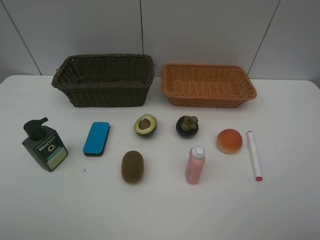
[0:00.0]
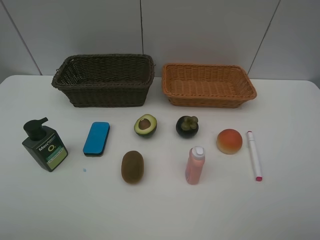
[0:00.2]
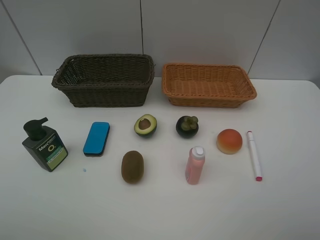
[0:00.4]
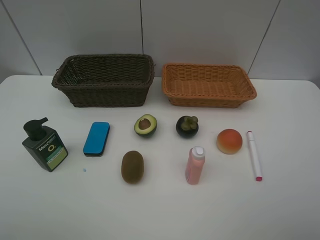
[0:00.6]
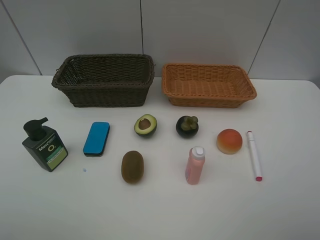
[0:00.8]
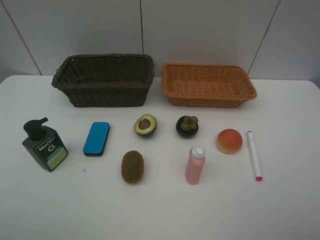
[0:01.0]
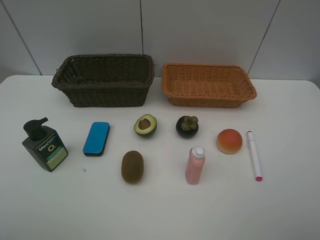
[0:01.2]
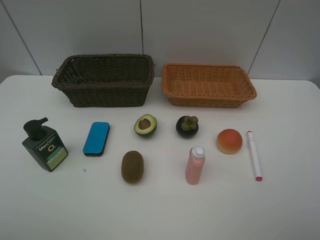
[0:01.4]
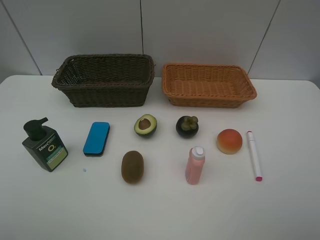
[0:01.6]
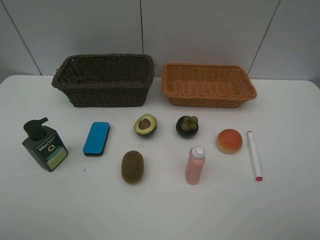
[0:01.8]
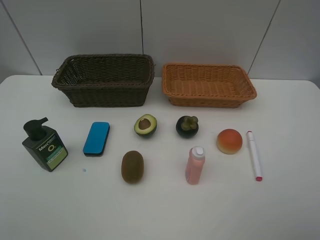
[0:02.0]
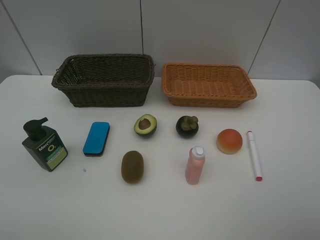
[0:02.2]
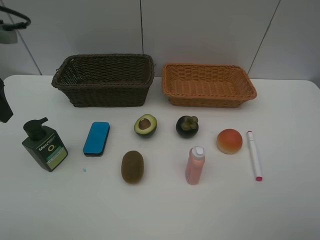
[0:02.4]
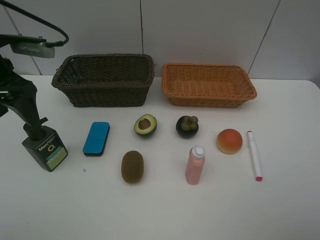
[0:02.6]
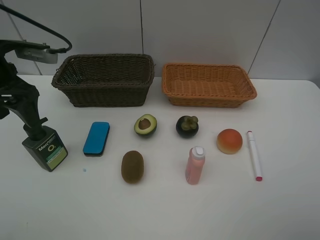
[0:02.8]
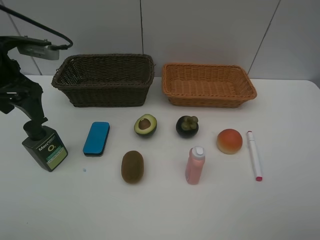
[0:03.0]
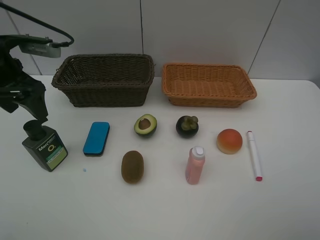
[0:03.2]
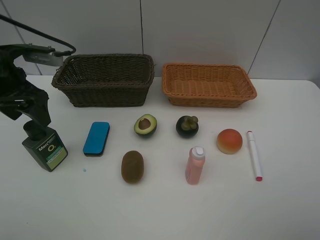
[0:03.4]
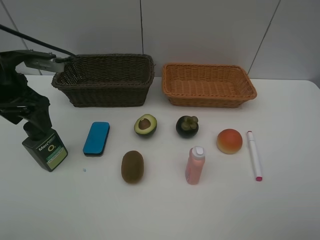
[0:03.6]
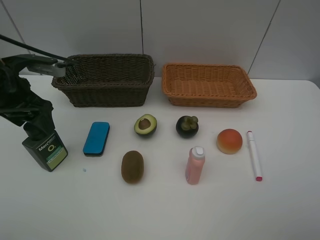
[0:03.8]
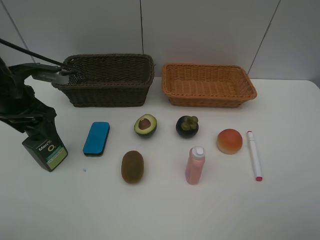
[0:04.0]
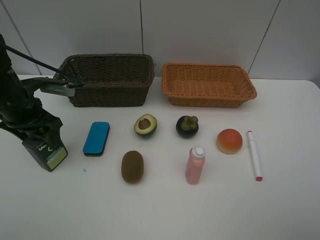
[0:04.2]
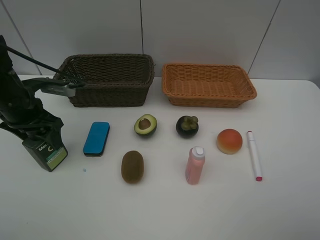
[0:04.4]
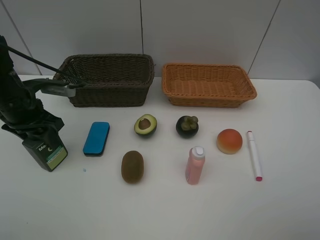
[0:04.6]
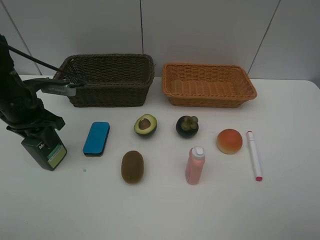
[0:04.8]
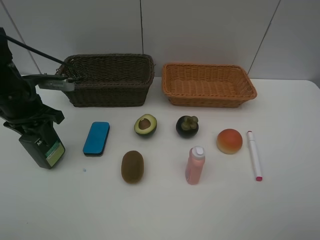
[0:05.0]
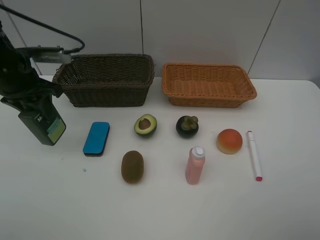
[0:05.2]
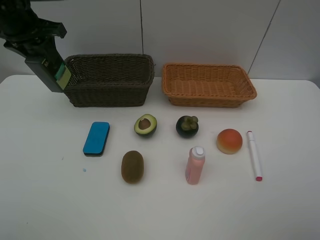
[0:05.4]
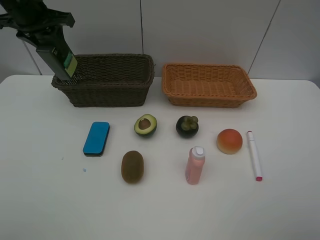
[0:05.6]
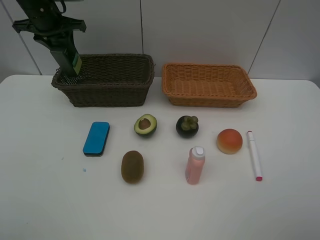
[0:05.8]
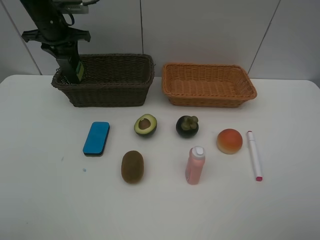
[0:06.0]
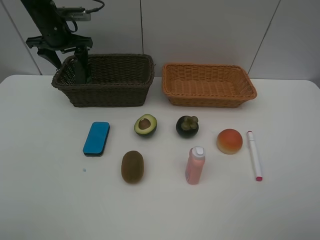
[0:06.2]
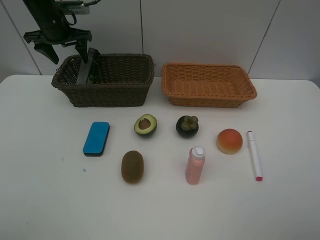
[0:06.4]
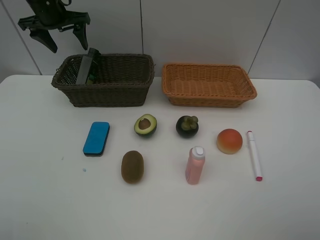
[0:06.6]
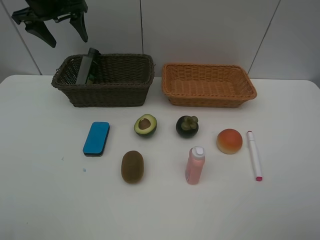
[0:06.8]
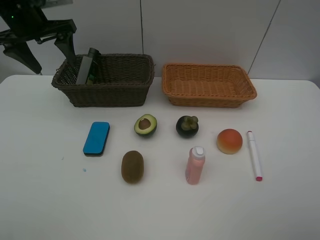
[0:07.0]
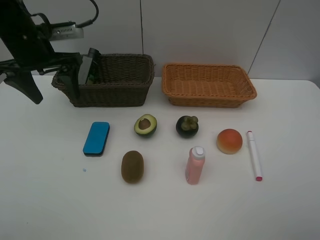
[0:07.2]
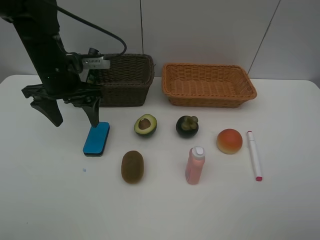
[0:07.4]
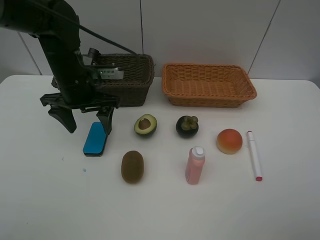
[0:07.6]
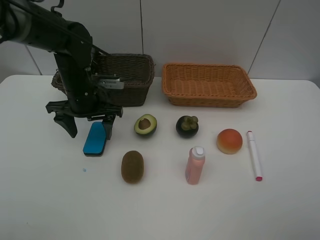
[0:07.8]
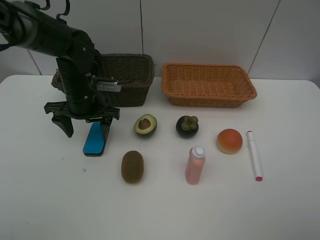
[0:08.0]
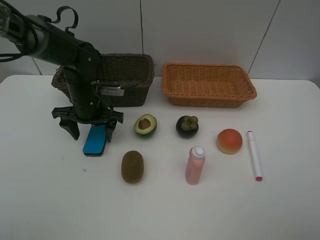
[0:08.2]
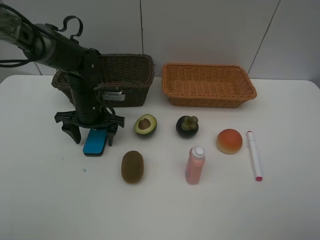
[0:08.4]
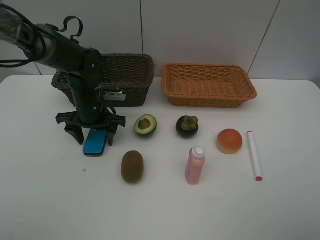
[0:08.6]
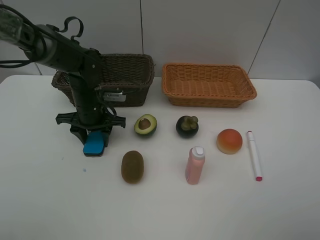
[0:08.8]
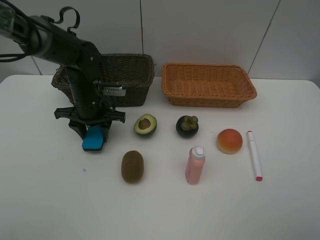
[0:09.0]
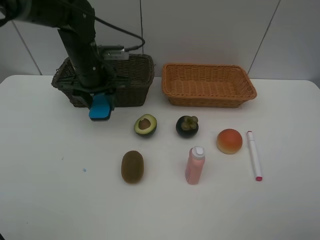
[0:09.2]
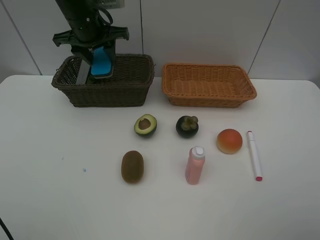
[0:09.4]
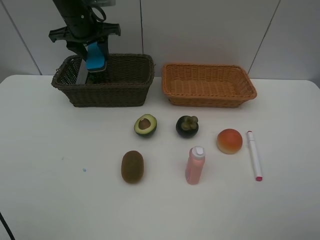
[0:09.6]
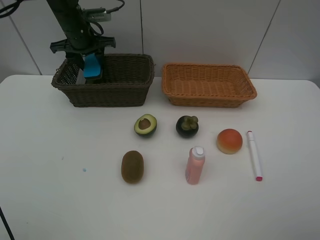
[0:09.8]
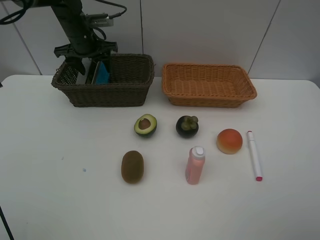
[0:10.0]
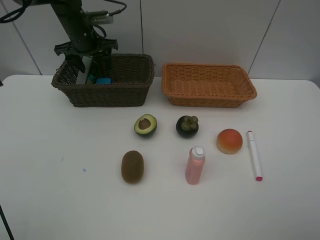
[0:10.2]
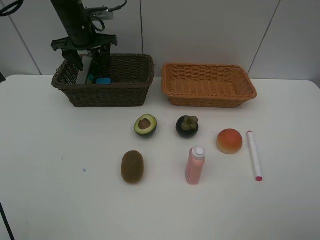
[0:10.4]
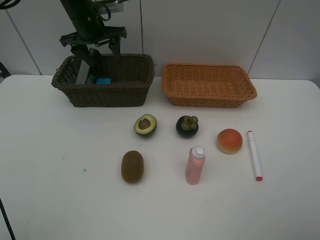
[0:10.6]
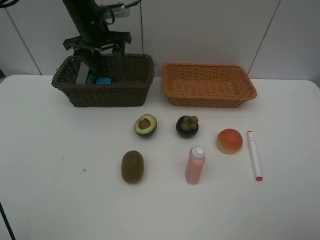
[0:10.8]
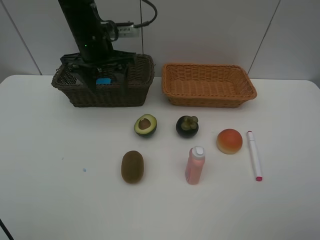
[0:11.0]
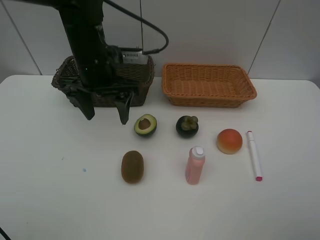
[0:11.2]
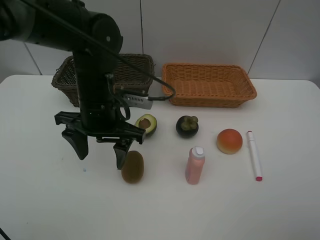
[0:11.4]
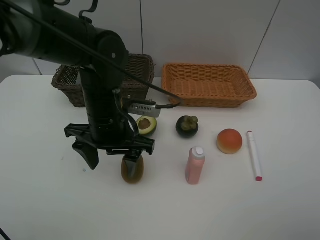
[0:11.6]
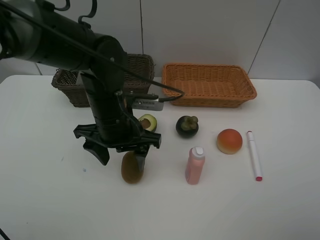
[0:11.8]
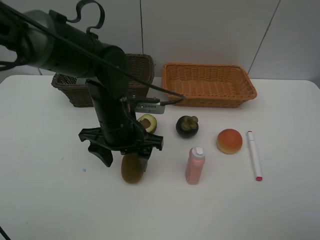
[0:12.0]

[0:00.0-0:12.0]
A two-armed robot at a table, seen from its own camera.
Task of the whole recording: Place multiple objects separately in different baskets.
Step, 0:00.0 to 0:05.2: Pick up the hard facial cleanser with left gripper.
Step, 0:05.4 to 0:06.6: Place the hard facial cleanser in the dark basket with left gripper.
Step, 0:06.8 to 0:09.0: Pick up blackboard eraser with left gripper.
Step, 0:09.2 to 0:10.4: Place the blackboard eraser in the dark basket with left gripper.
0:00.0 to 0:01.6: Both grippers stay about where they are.
0:01.6 to 0:03.0: The left gripper shifts roughly 30 cm forward.
0:03.0 to 0:04.4: The left gripper is displaced downward by approximately 10 cm.
0:04.4 to 0:06.0: The left gripper travels forward by some 20 cm, and closes up.
0:06.0 to 0:07.6: The left gripper shifts about 20 cm backward and to the right, and opens up.
0:07.6 to 0:09.0: The left gripper closes up.
0:09.0 to 0:10.4: The left gripper travels forward and upward by roughly 15 cm, and opens its fingers.
0:10.4 to 0:12.0: The left gripper heads backward and to the right, covering some 25 cm.

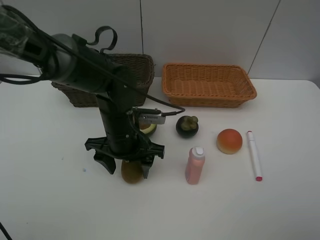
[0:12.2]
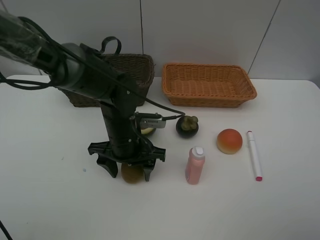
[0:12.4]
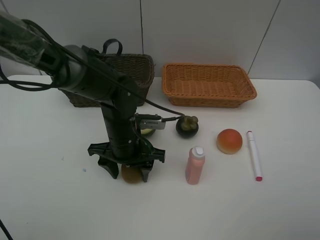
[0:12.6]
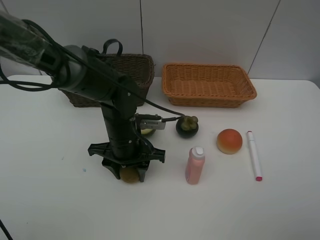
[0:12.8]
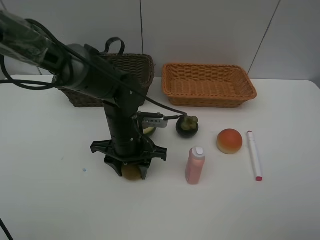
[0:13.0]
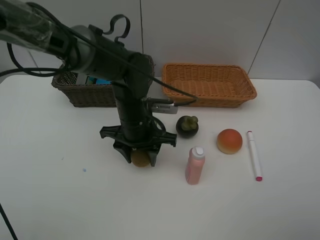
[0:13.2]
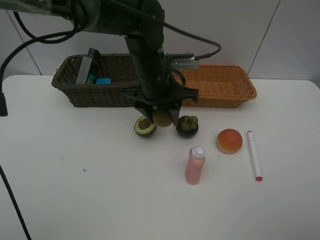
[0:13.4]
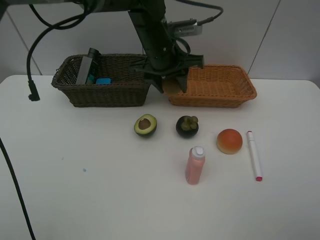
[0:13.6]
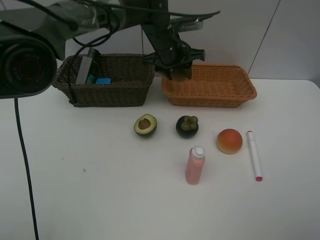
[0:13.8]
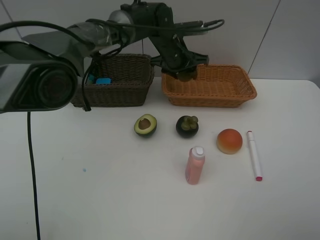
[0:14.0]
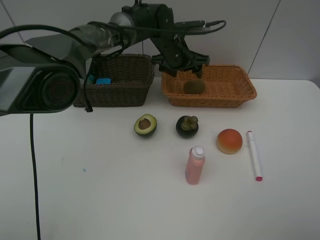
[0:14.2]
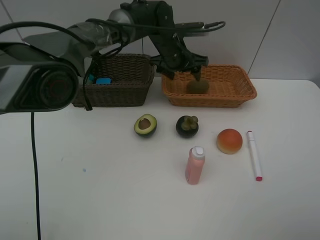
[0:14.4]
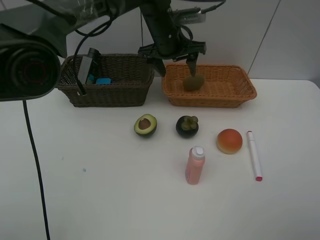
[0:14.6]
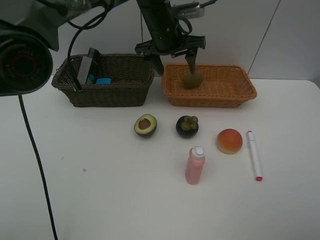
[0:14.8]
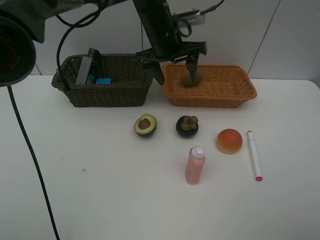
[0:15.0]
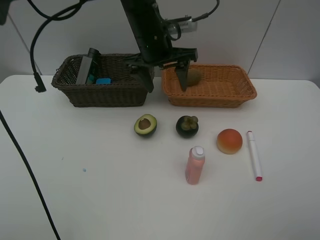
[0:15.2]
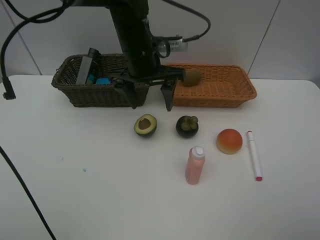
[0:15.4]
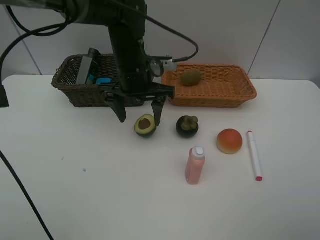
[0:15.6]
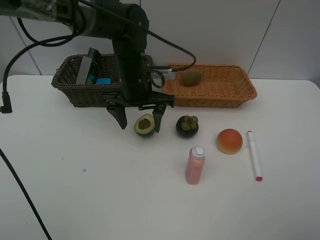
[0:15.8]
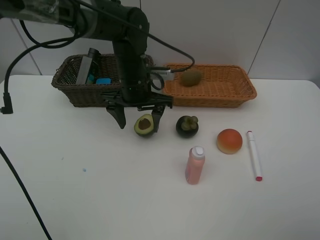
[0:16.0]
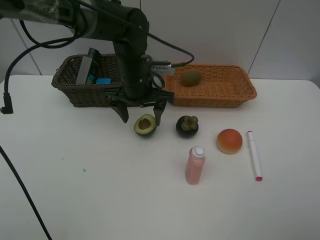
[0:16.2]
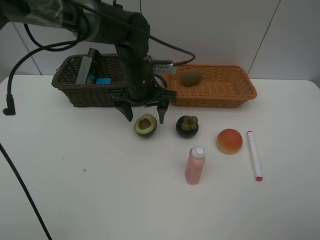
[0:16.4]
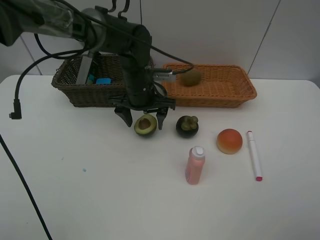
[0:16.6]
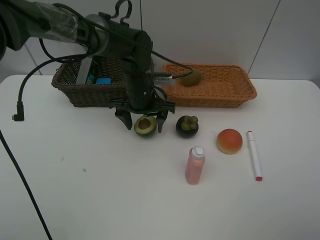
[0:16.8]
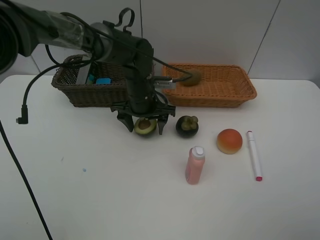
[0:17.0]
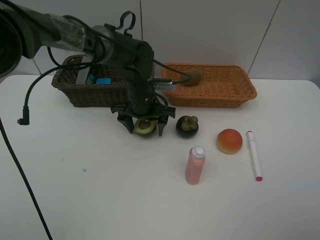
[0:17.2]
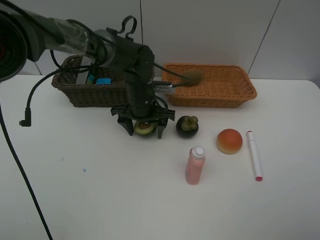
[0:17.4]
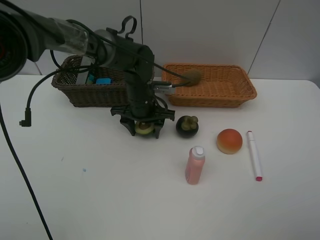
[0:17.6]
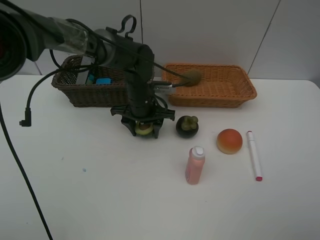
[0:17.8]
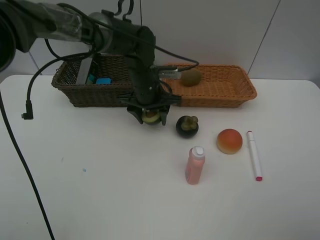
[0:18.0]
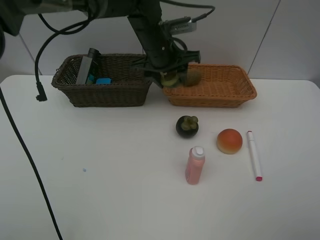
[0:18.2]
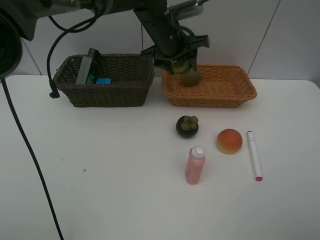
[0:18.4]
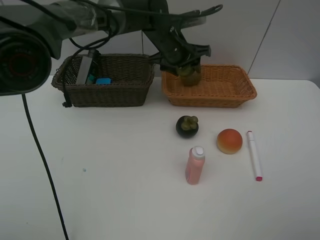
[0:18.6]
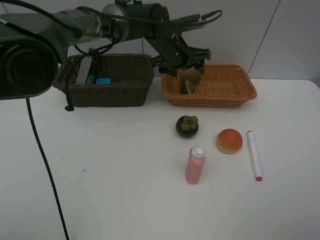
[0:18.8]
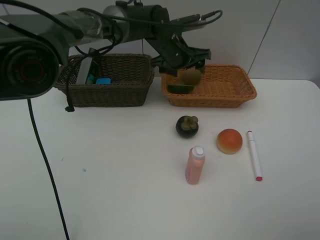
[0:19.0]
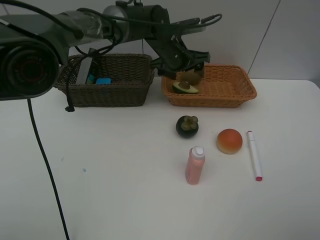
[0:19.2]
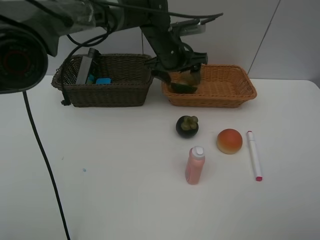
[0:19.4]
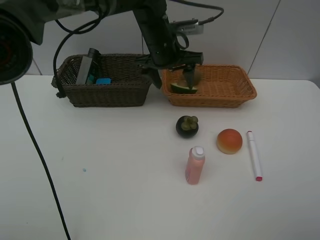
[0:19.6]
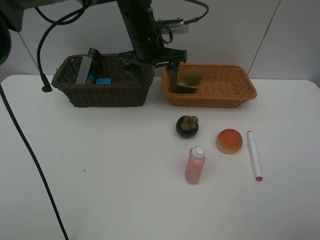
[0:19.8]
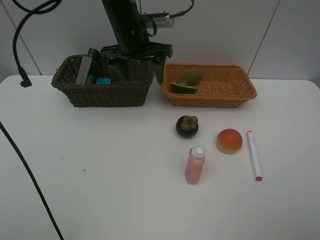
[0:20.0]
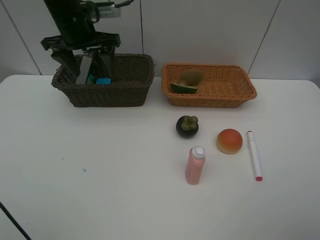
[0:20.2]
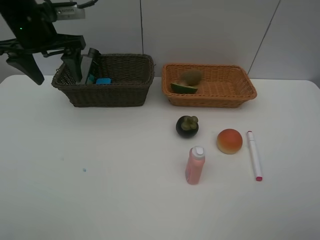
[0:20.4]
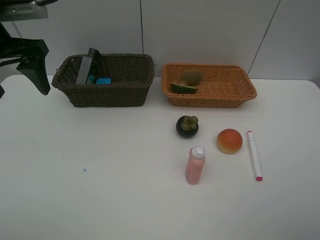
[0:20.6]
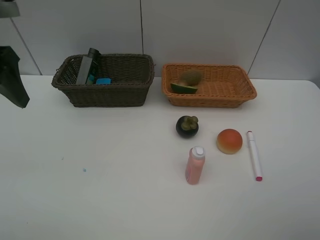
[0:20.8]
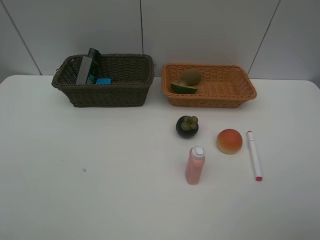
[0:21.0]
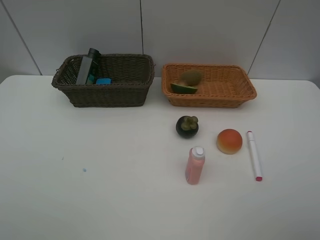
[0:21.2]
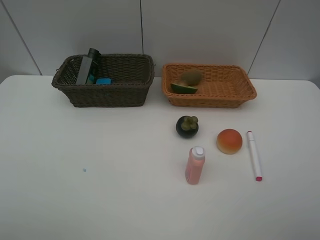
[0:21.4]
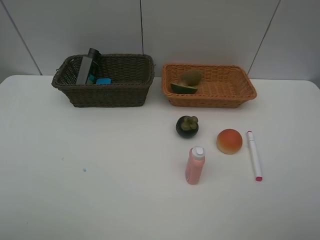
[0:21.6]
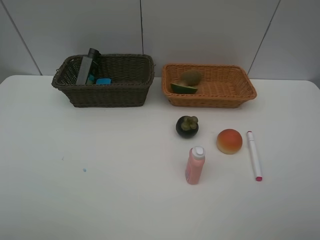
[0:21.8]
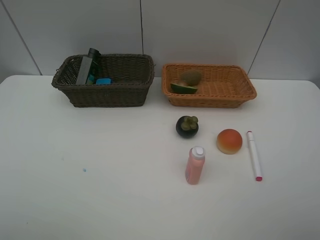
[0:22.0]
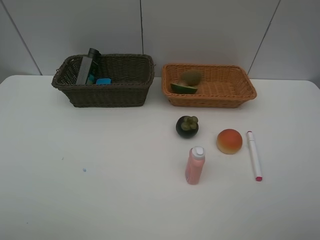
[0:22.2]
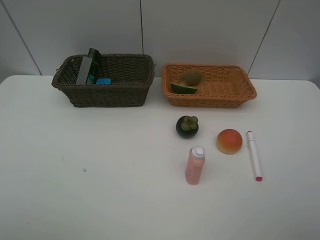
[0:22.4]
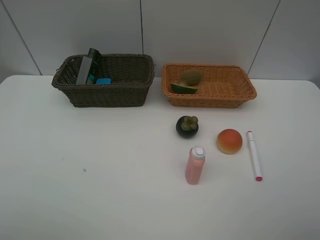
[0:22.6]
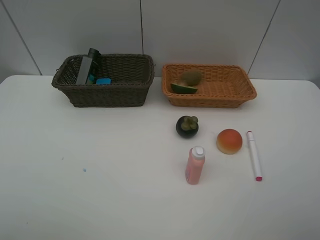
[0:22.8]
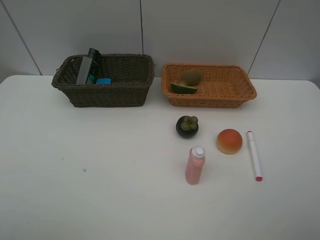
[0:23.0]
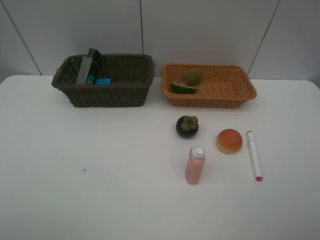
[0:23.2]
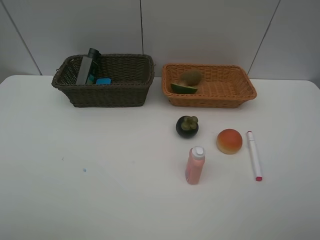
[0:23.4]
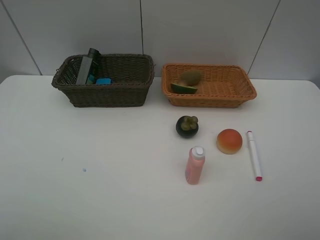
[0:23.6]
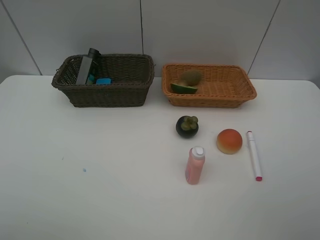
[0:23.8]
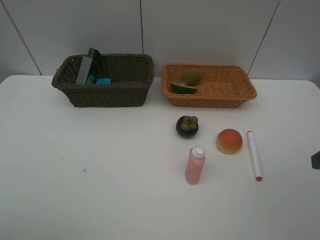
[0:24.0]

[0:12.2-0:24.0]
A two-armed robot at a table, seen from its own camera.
Task of the whole recording: Place multiple objects separately in different baskets.
Step, 0:13.4 to 0:14.4: Place the kiwi in the light basket with left gripper.
Step, 0:14.6 to 0:18.0: Pick up the avocado with left gripper.
Step, 0:18.2 to 0:18.8: Place the avocado in the light basket with left gripper.
0:12.2 to 0:13.6: The left gripper is displaced forward, upward and to the right by some 20 cm, and closes up.
0:13.6 to 0:15.2: The left gripper reaches about 5 cm forward, then returns, and opens.
0:15.2 to 0:16.6: The left gripper is displaced downward by roughly 10 cm.
0:16.6 to 0:18.2: The left gripper heads upward, covering about 10 cm, and closes up.
0:18.2 to 0:19.6: The left gripper opens.
0:19.6 to 0:21.0: The left gripper is displaced backward and to the left by about 40 cm.
